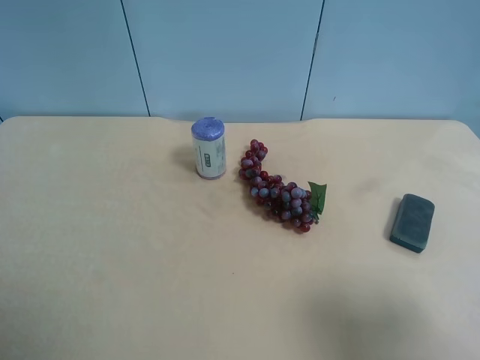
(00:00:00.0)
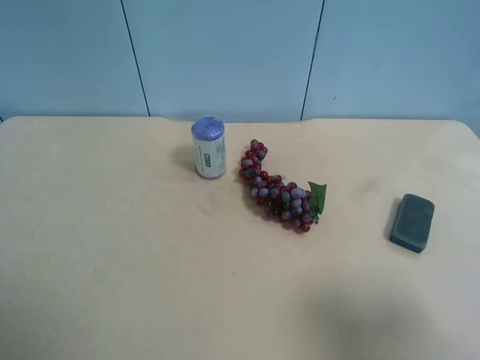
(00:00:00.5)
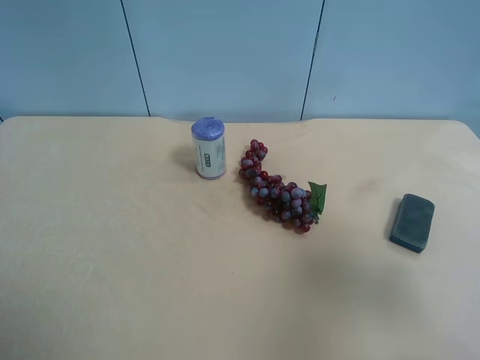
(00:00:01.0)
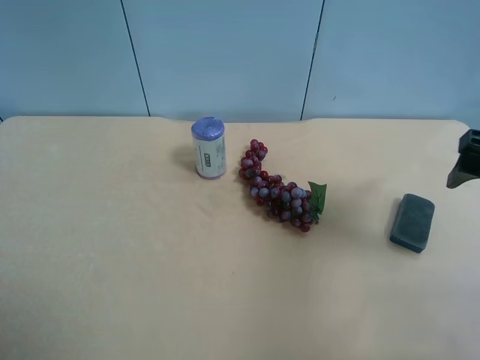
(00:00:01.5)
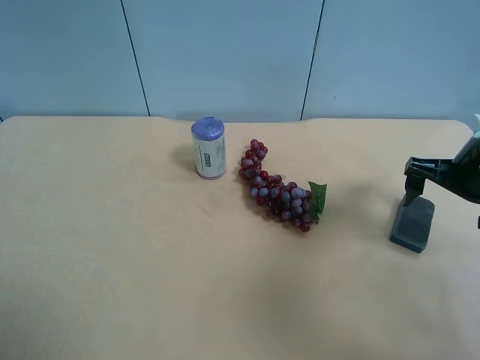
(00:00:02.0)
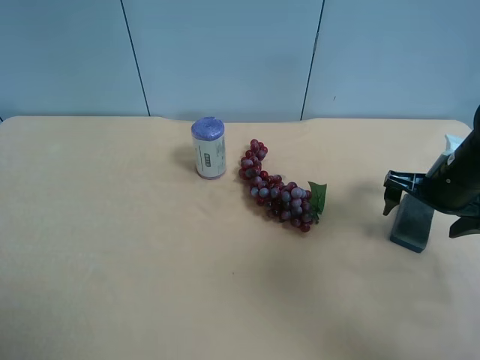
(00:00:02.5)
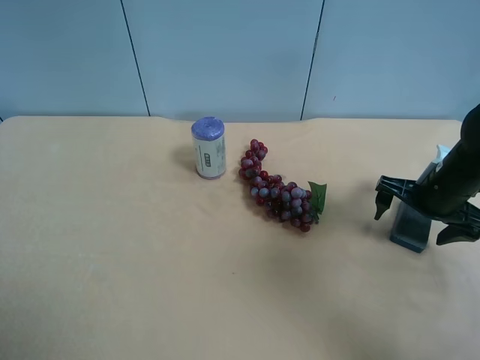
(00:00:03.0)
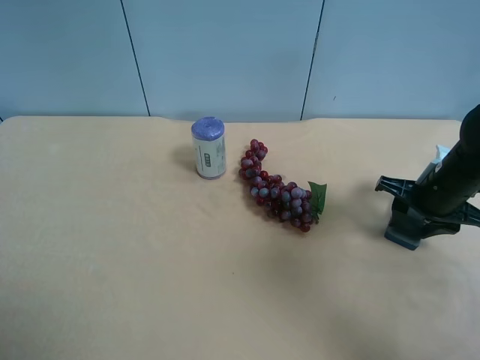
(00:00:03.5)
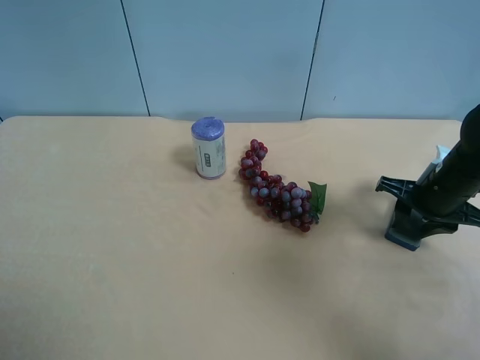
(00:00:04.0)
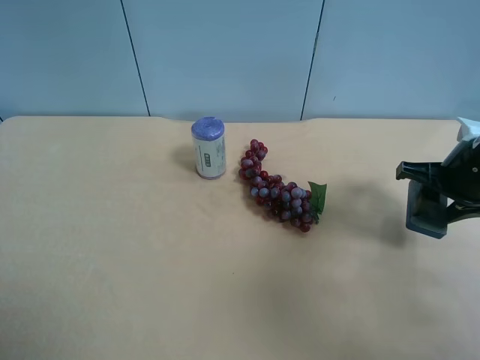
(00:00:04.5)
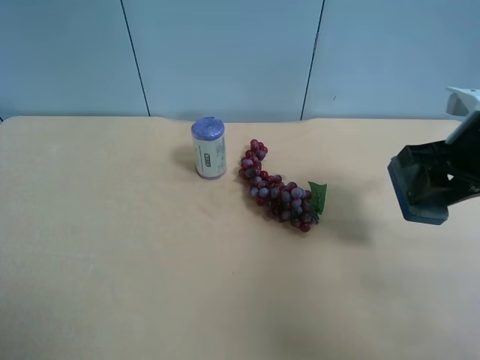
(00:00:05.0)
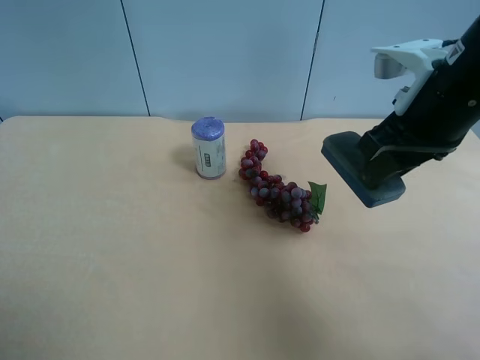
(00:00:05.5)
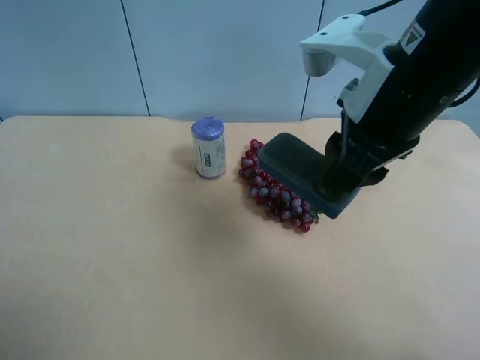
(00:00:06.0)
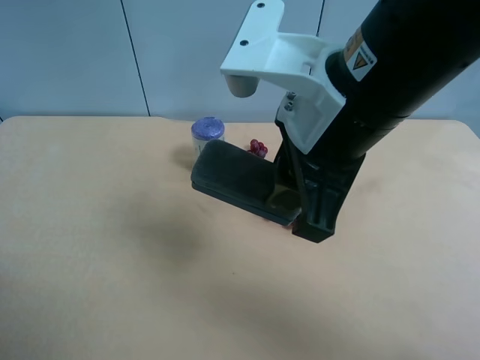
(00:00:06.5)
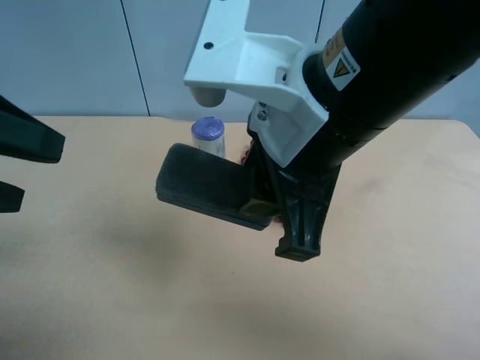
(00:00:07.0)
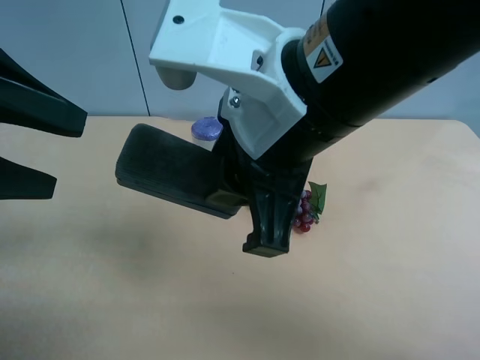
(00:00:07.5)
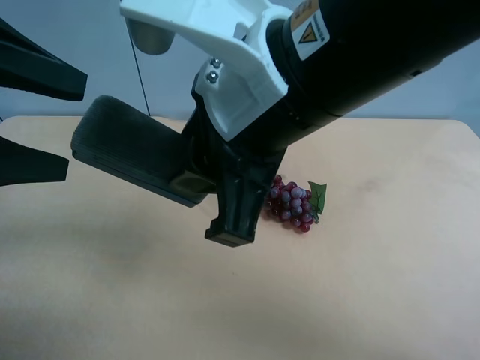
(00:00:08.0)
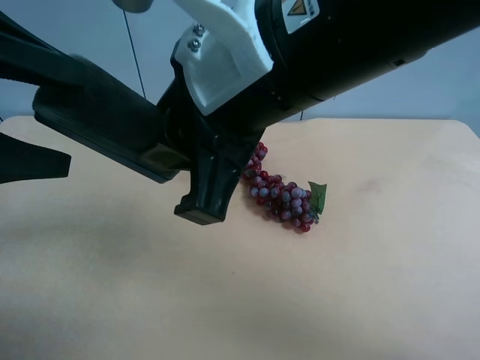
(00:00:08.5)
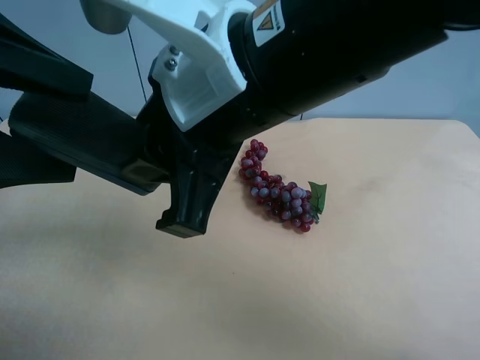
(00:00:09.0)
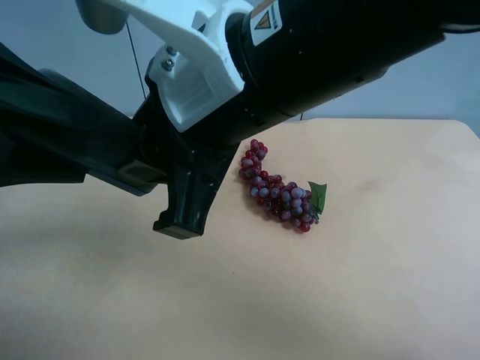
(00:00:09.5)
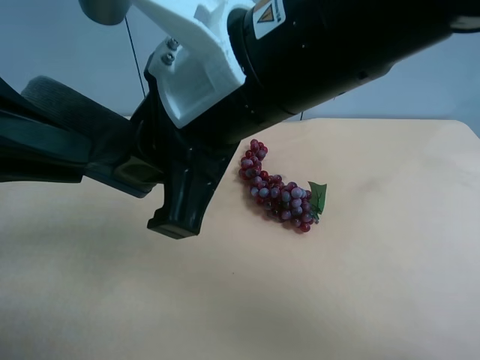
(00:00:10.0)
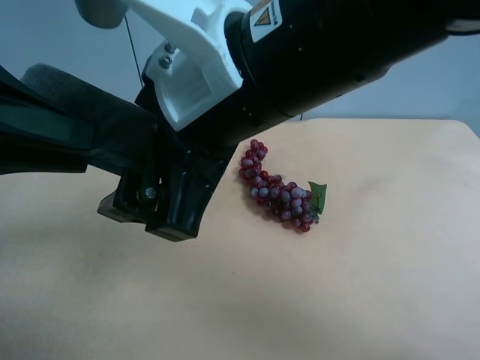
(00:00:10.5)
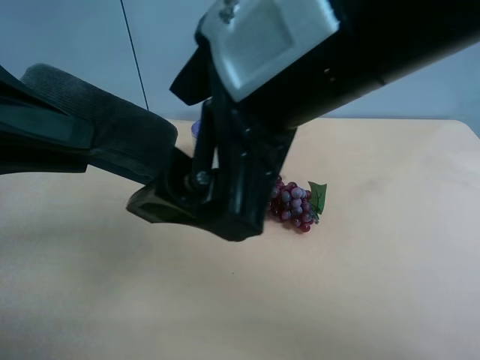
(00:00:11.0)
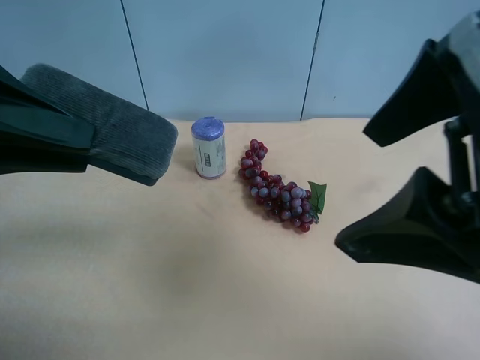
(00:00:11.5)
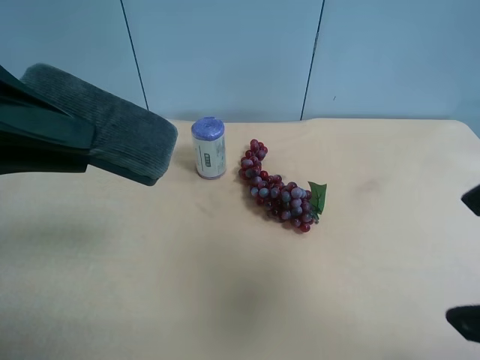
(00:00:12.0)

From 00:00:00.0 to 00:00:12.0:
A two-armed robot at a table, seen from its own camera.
Task of the whole recording: use the right gripper to pick up the item and transfer it from the right gripper to the left gripper.
From 00:00:00.0 to 00:00:02.0: The right gripper shifts roughly 25 cm forward.
From 00:00:02.0 to 00:00:04.0: The right gripper shifts about 5 cm downward, and closes its fingers.
From 00:00:04.0 to 00:00:06.0: The right gripper goes approximately 25 cm upward, to the left and backward.
From 00:00:06.0 to 00:00:08.0: The right gripper moves to the left, about 10 cm; the left gripper travels forward by approximately 15 cm.
From 00:00:08.0 to 00:00:10.0: The left gripper closes up.
From 00:00:10.0 to 00:00:12.0: The right gripper travels to the right and backward by about 25 cm, and opens up.

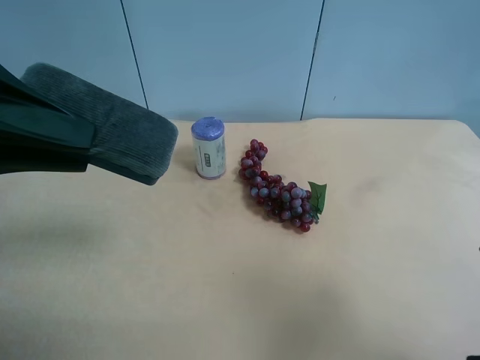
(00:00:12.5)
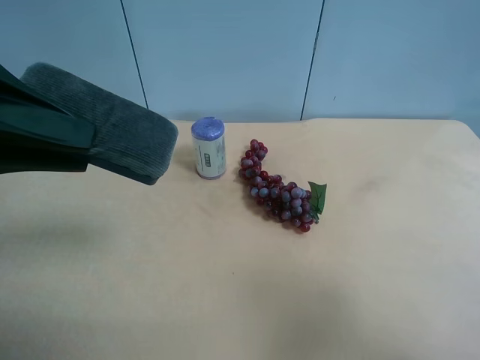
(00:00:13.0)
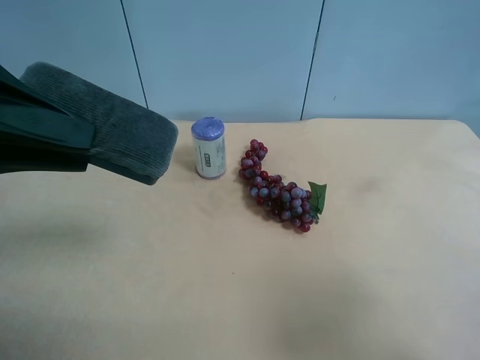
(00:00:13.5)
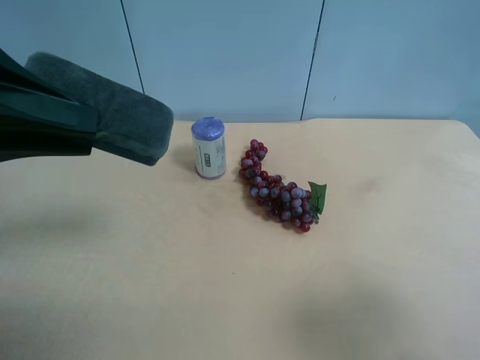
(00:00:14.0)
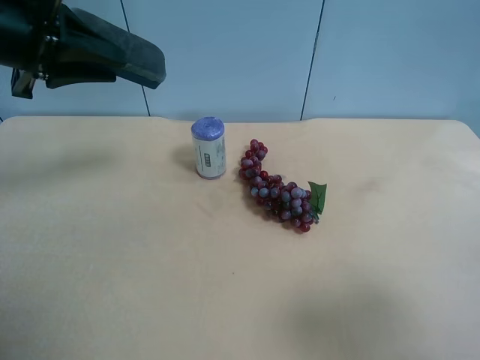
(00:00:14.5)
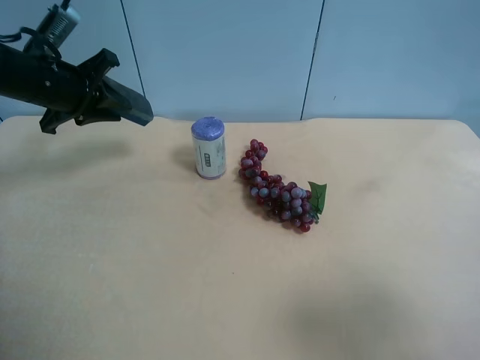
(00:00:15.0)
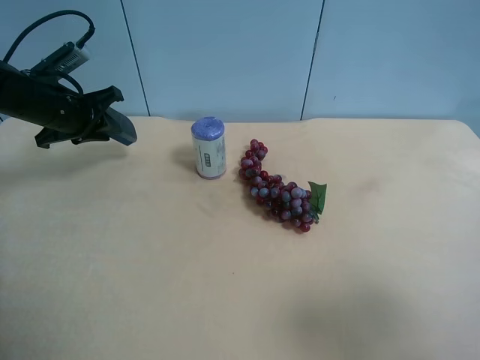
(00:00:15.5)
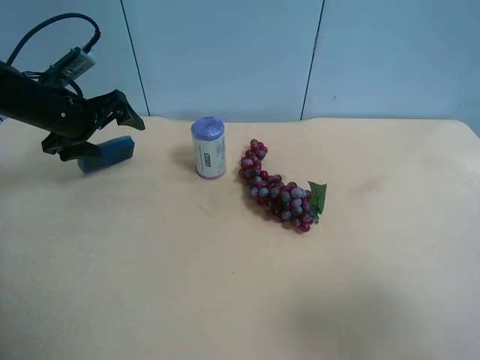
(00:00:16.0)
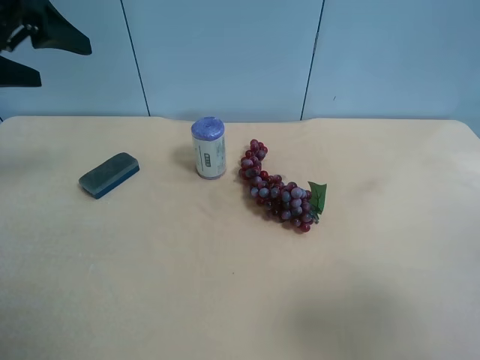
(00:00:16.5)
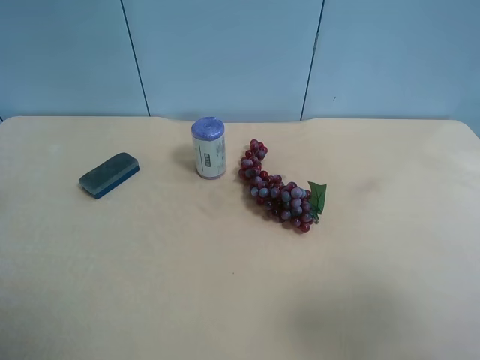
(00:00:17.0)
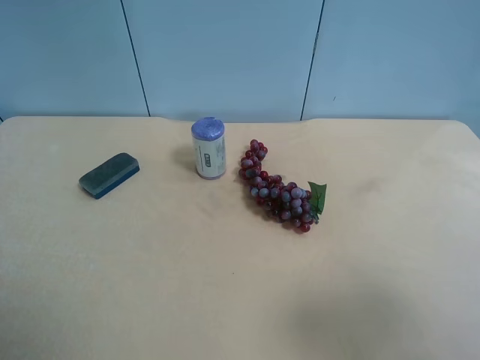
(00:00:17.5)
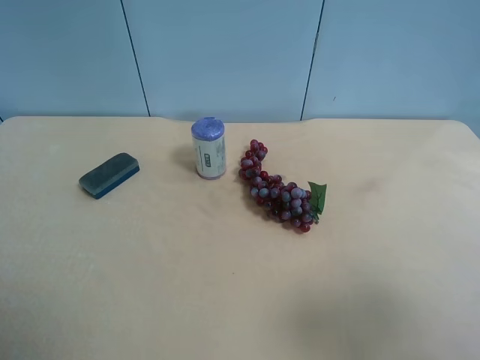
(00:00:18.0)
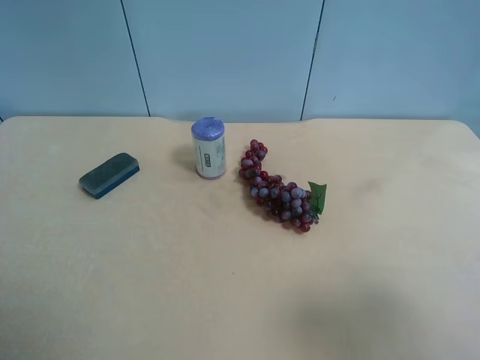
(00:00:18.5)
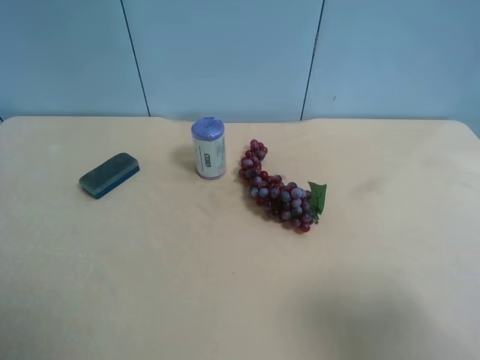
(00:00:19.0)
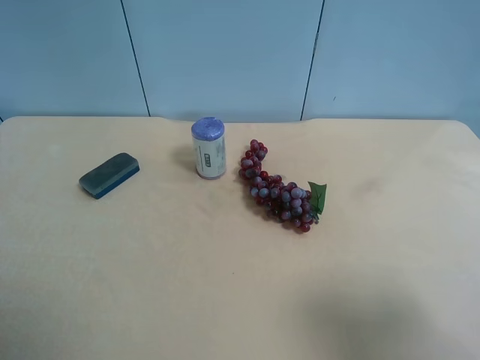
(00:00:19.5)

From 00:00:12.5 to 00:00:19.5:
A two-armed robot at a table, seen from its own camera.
Task of the whole recording: use the right gripper to pick up the item and transfer it from the right gripper to the left gripper.
From 00:00:12.5 to 00:00:14.5: The left gripper heads forward, covering roughly 15 cm.
From 00:00:14.5 to 00:00:16.0: The left gripper is displaced downward and forward by approximately 15 cm, and opens its fingers.
From 00:00:16.0 to 00:00:17.5: The left gripper shifts some 35 cm backward.
